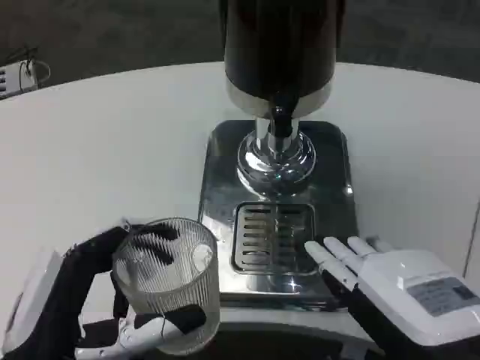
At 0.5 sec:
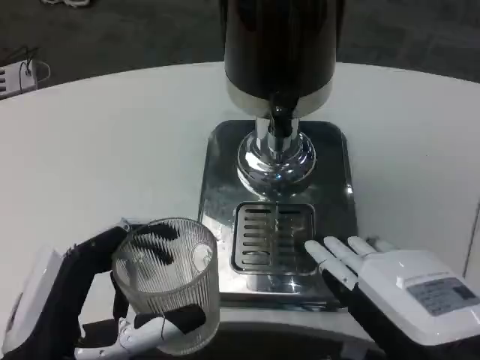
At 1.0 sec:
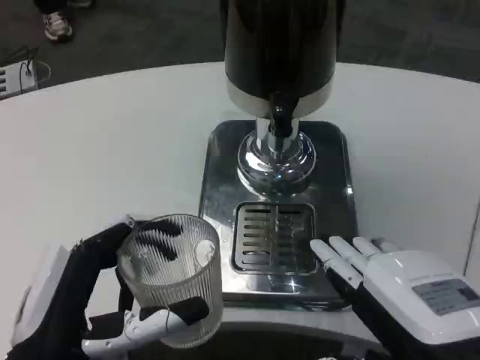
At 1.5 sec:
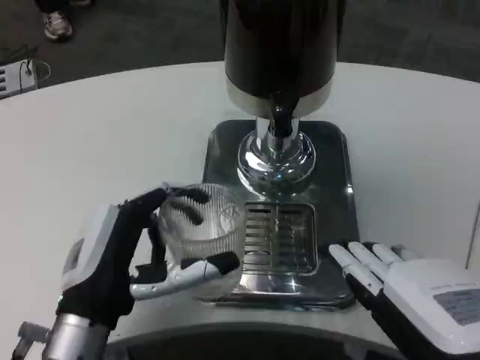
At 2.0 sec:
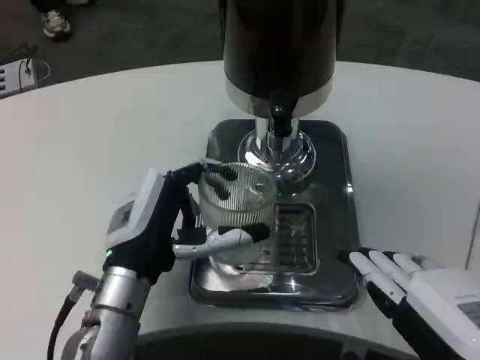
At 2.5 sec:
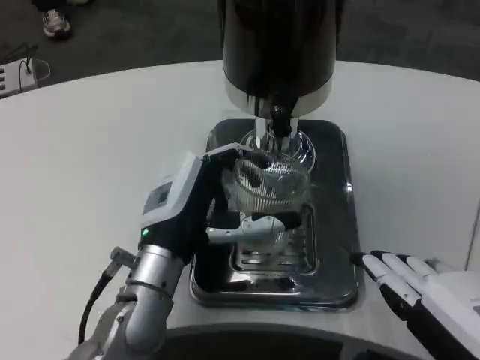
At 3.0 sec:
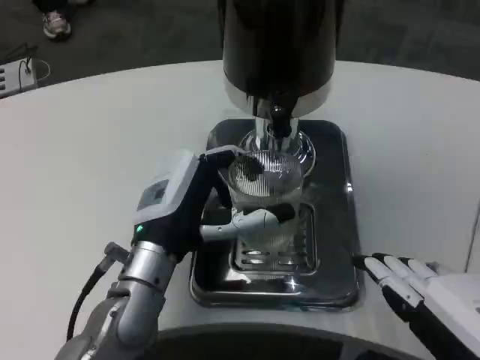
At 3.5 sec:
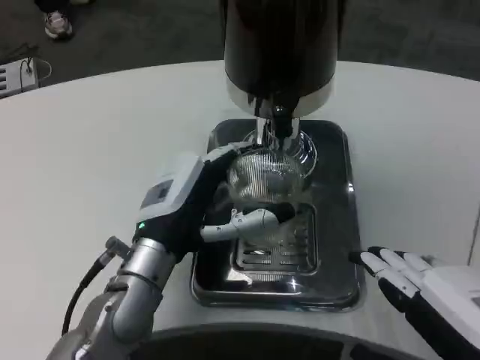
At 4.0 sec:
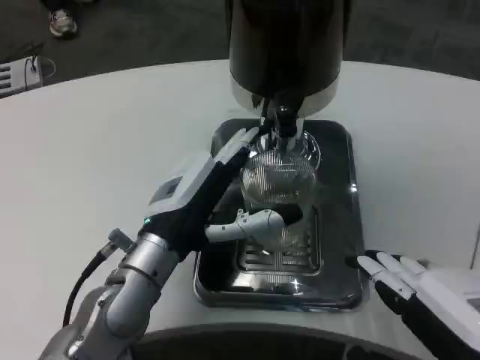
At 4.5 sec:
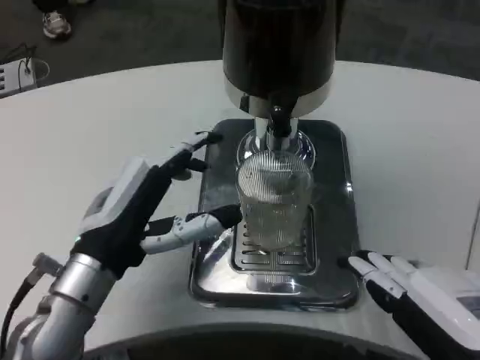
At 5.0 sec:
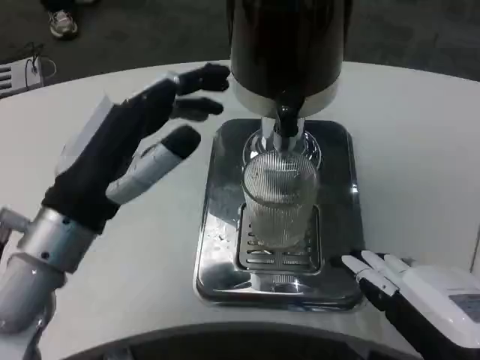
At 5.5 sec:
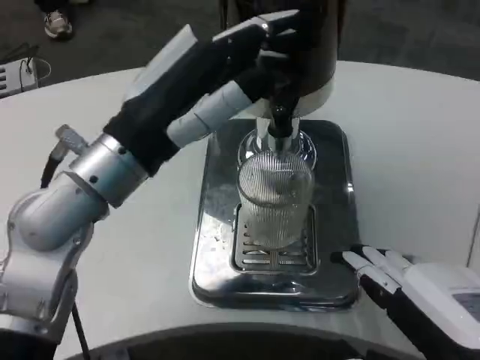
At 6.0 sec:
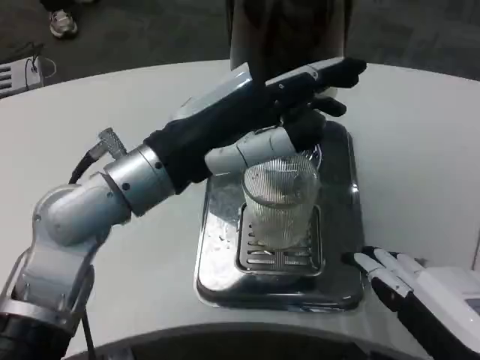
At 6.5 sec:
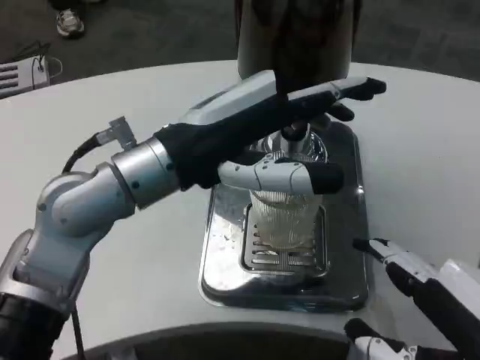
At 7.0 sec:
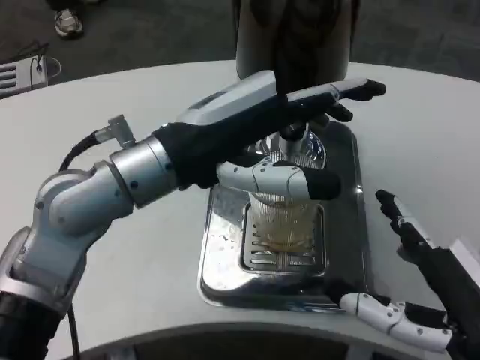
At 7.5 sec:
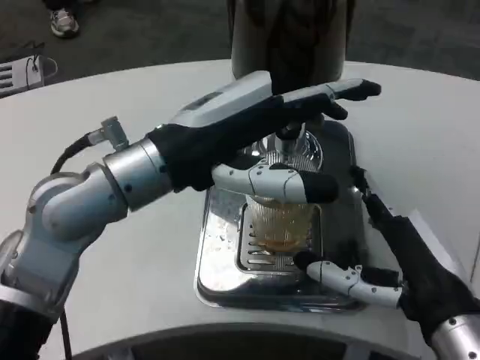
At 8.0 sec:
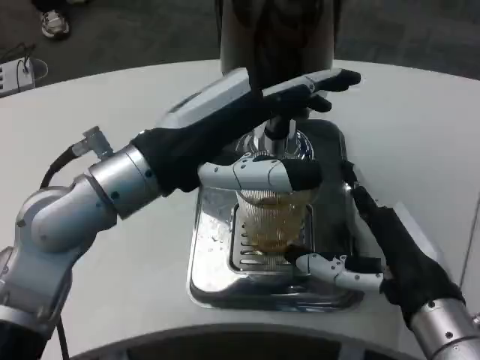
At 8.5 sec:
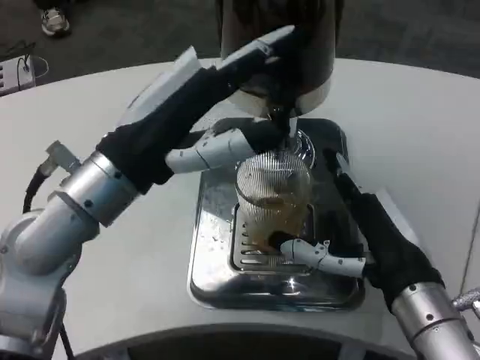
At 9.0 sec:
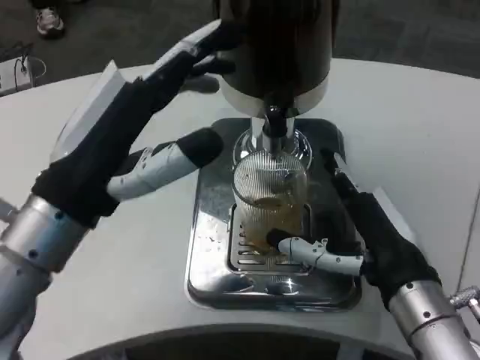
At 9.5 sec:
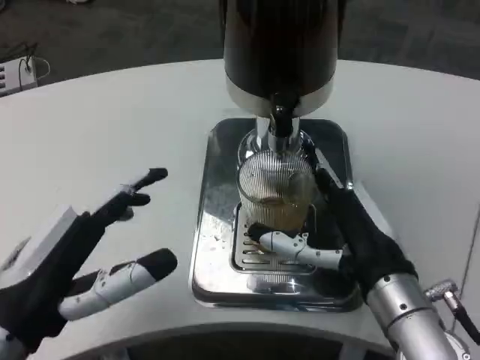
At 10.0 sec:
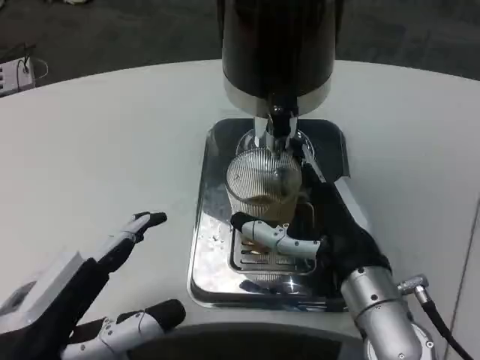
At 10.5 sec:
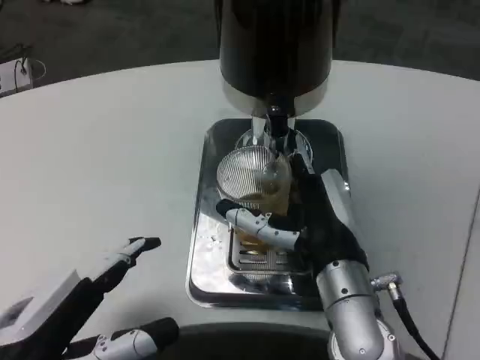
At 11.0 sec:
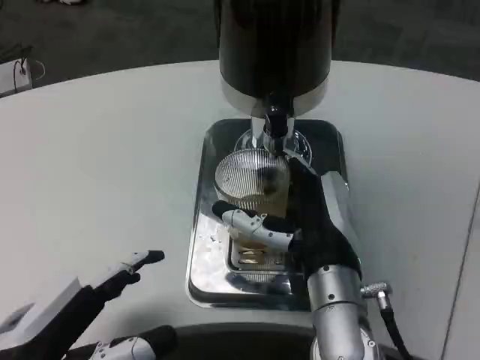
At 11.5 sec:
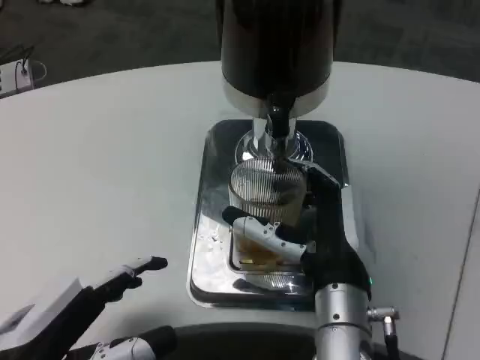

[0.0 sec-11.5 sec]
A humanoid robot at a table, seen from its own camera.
Task of the whole recording: Grasp the cup under the faucet to collect the drink, then remove the cup.
0.0 sec to 2.0 sec: The left hand goes approximately 15 cm forward and to the right.
4.0 sec to 6.0 sec: The left hand shifts about 10 cm upward.
6.0 sec to 7.5 sec: The right hand goes about 10 cm forward.
7.5 sec to 9.5 sec: The right hand is displaced forward by some 5 cm. Meanwhile the left hand shifts approximately 20 cm downward, backward and to the left.
9.5 sec to 11.5 sec: The right hand shifts some 5 cm to the left.

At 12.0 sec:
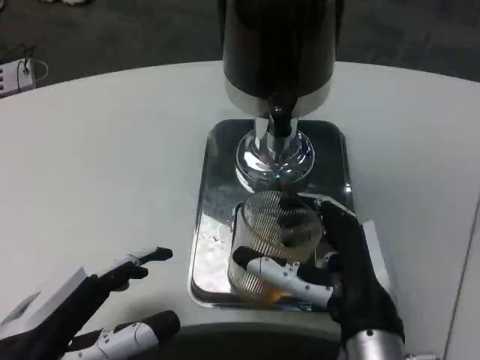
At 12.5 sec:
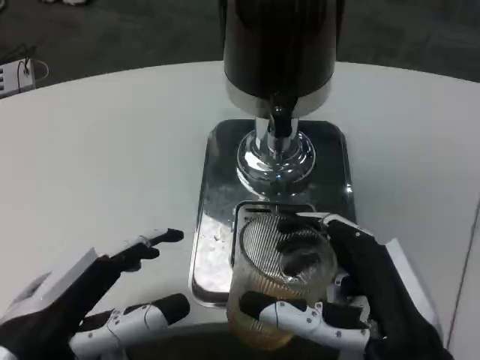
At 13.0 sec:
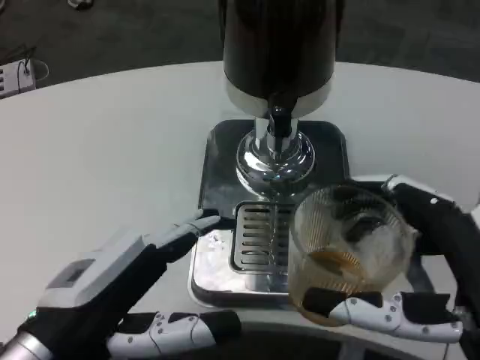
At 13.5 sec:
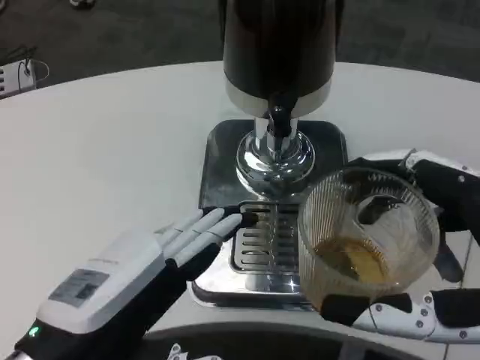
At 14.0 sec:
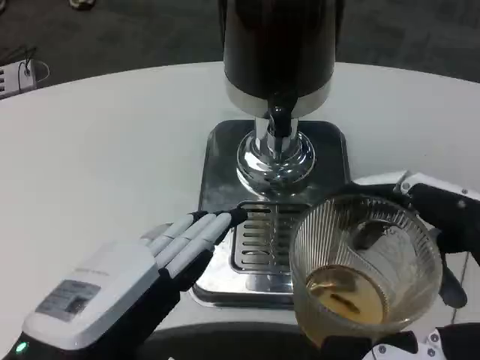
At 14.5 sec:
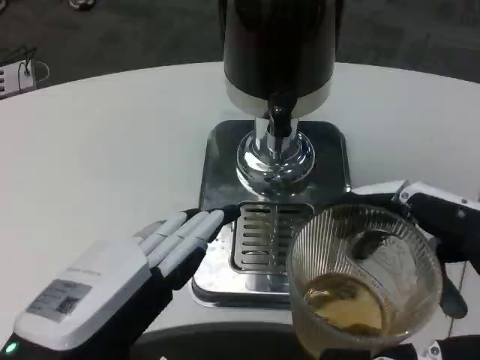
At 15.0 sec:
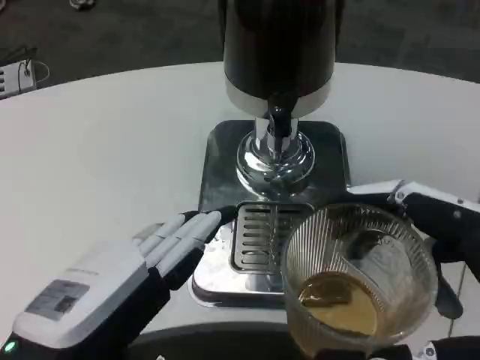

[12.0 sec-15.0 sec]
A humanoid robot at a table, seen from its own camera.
Task of the whole recording: Grasp the cup under the faucet to collect the drink, then remove the cup.
12.0 sec to 13.5 sec: The right hand shifts roughly 15 cm to the right, backward and upward; the left hand ends up roughly 5 cm from where it was.
